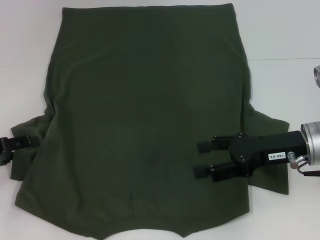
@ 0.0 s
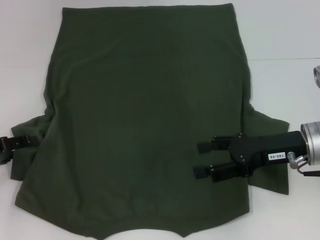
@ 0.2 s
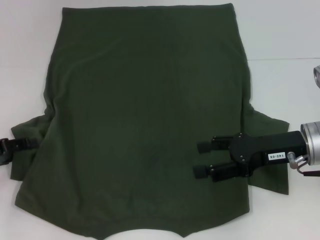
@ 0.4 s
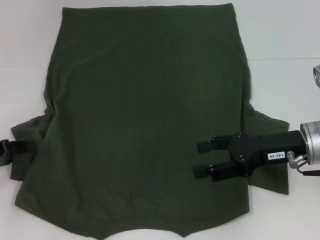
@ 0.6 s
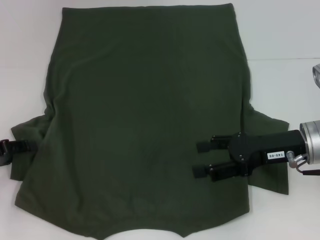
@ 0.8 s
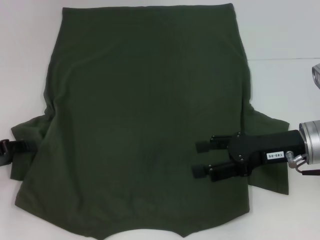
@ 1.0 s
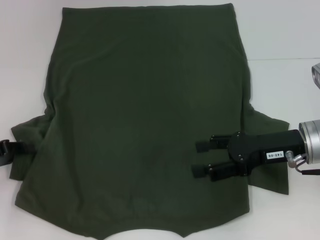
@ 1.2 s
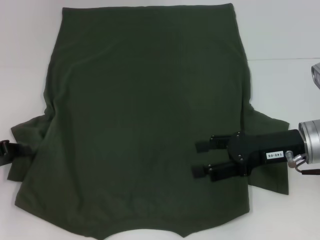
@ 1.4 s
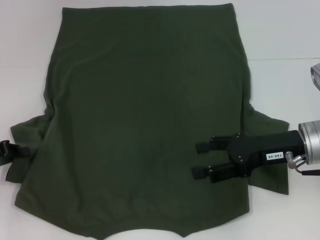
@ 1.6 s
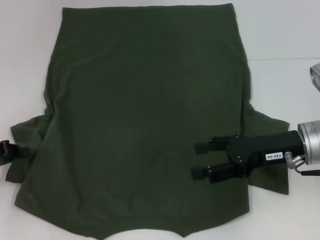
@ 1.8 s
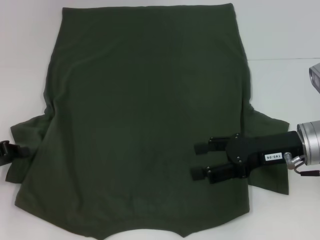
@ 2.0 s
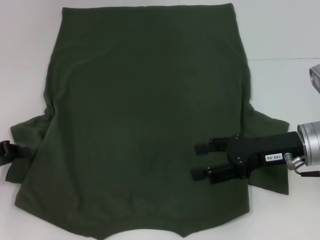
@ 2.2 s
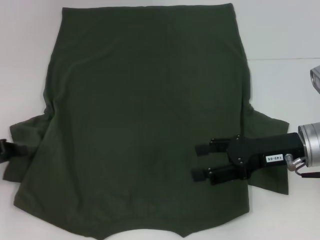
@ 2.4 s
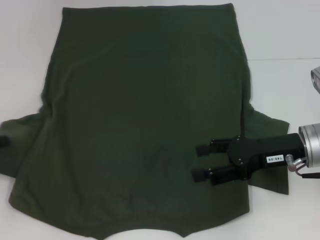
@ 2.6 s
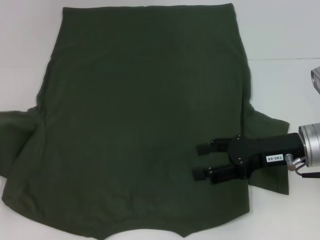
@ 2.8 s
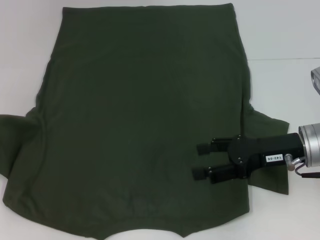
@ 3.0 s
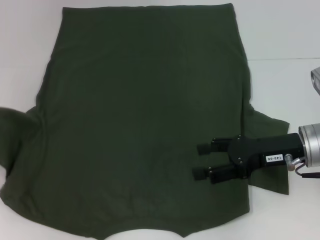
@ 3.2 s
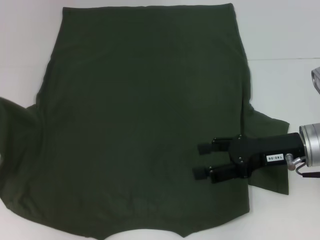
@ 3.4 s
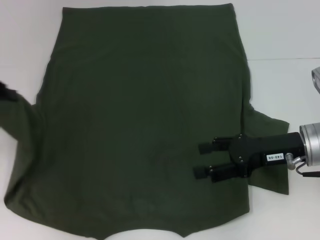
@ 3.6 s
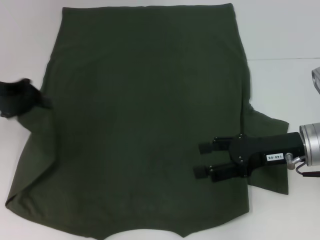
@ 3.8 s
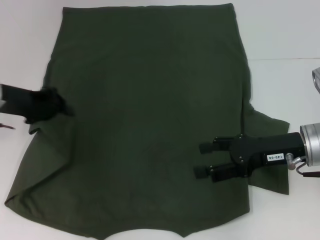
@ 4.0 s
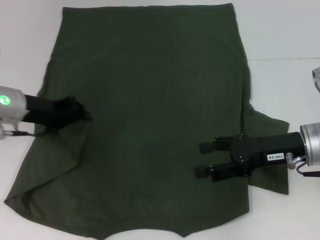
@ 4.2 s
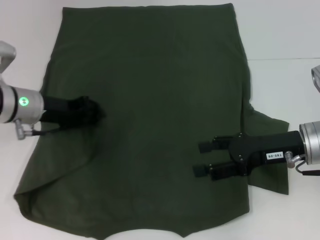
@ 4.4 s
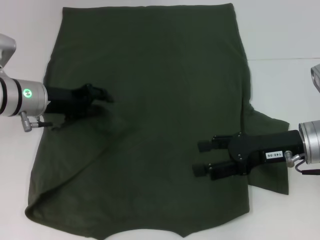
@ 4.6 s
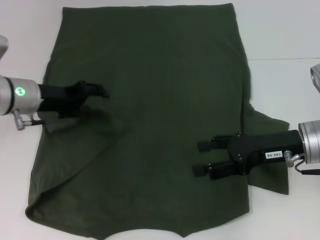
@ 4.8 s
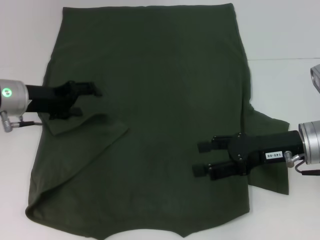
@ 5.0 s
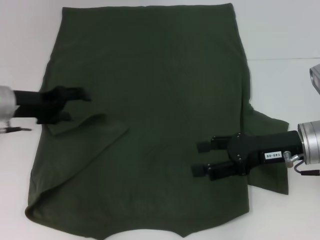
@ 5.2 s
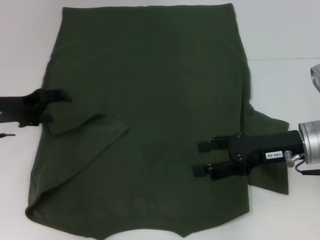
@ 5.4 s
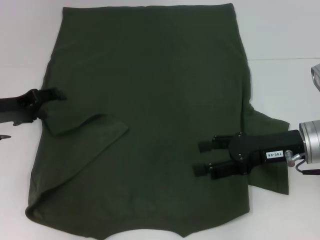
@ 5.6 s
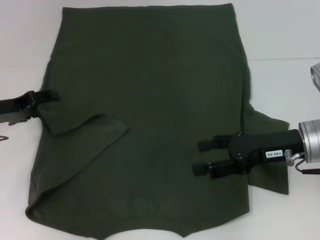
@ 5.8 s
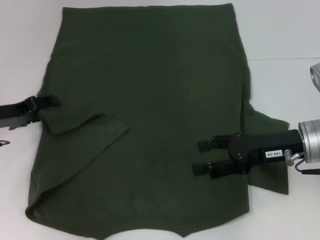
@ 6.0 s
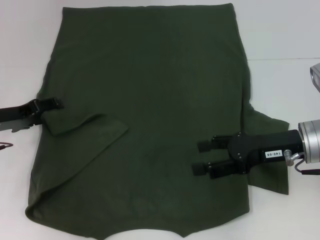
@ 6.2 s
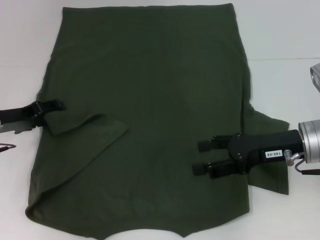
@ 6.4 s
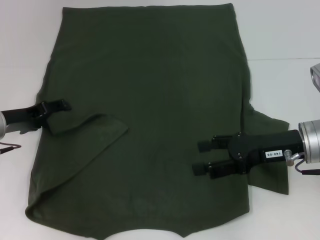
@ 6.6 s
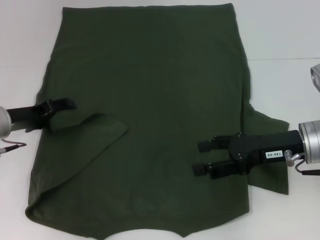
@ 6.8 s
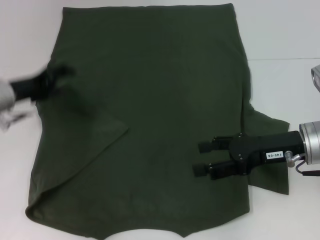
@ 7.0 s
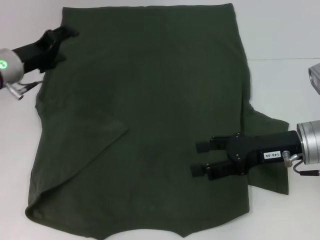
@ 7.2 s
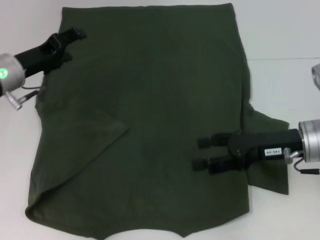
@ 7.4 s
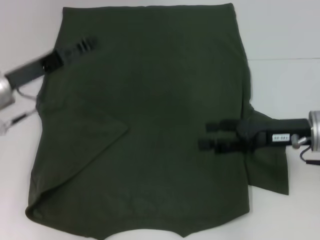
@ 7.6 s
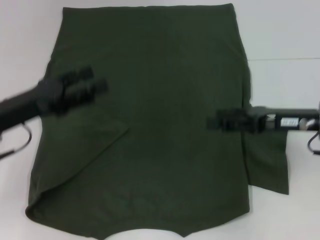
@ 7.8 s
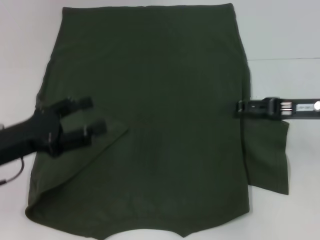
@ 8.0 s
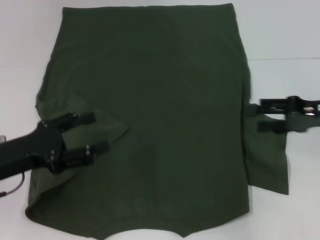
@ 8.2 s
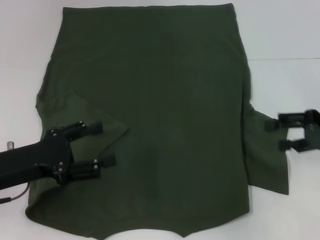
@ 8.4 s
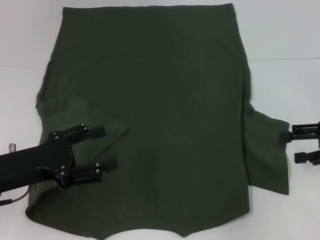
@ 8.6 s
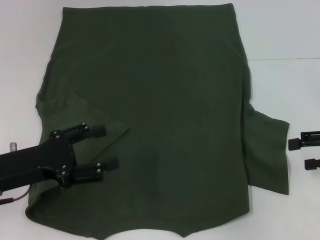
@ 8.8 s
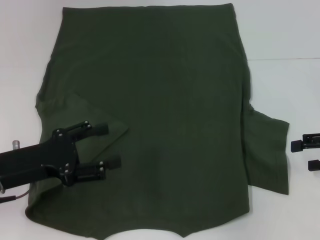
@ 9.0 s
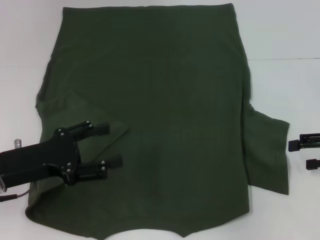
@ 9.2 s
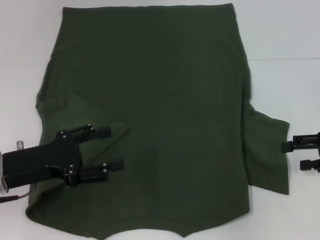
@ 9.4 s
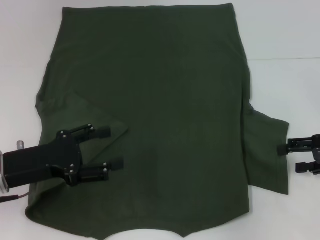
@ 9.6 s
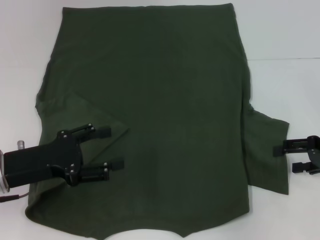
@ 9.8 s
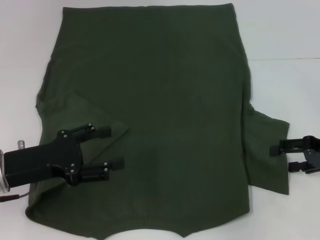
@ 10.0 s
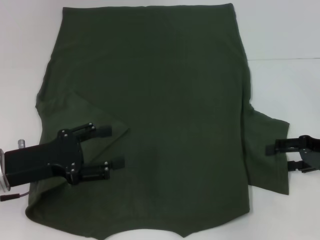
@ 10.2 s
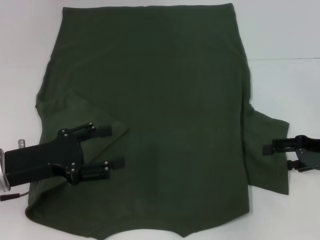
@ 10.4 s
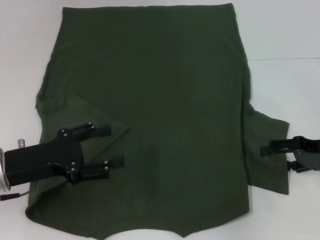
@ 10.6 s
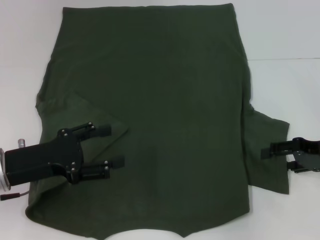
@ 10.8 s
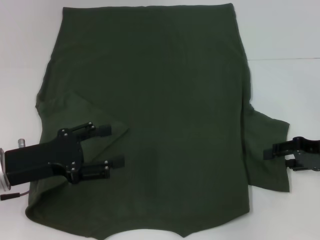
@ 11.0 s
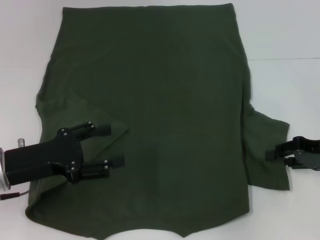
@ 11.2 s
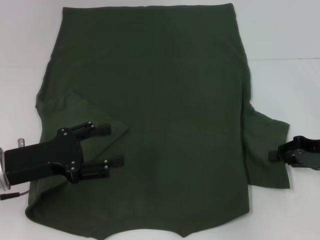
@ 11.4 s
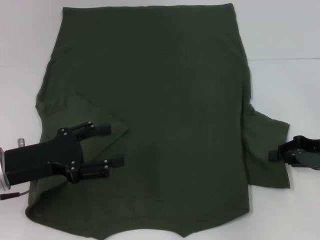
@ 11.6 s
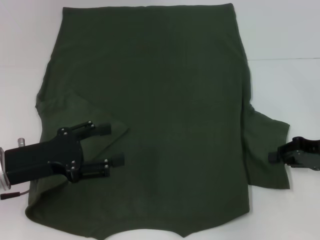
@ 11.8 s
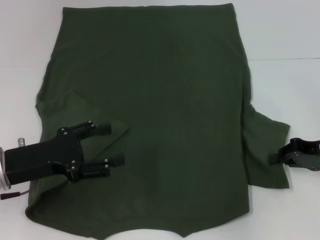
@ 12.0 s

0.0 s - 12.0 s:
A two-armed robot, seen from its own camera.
Step, 0.0 s - 5.0 s: Fold the bottom left sleeve with your left hand.
0.0 s - 1.6 s: The left gripper closes up.
1.6 s - 3.0 s: The left gripper shifts about 10 cm upward and to the left.
3.0 s - 4.4 s: The left gripper shifts some 20 cm to the right and forward.
4.4 s - 6.0 s: The left gripper goes approximately 10 cm to the left, and opens.
6.0 s - 7.6 s: The left gripper ends up some 5 cm from where it was.
7.6 s - 9.0 s: The right gripper goes approximately 15 cm to the right; the left gripper moves backward, some 10 cm.
9.0 s - 10.4 s: The right gripper shifts by about 5 cm.
10.4 s - 12.0 s: The right gripper closes up.

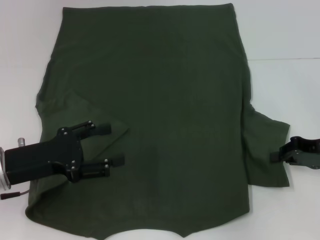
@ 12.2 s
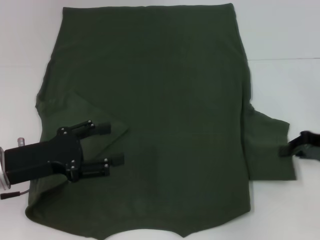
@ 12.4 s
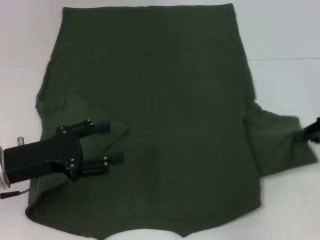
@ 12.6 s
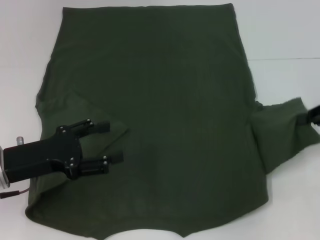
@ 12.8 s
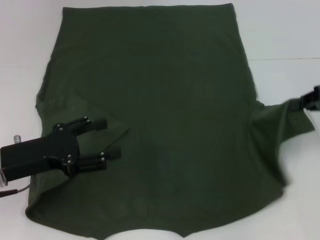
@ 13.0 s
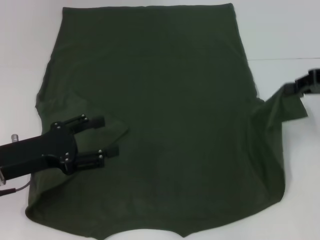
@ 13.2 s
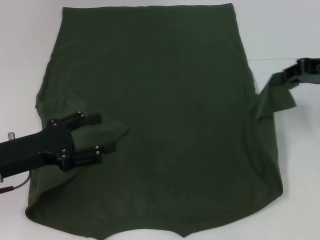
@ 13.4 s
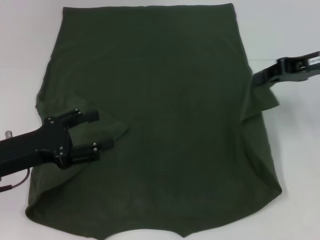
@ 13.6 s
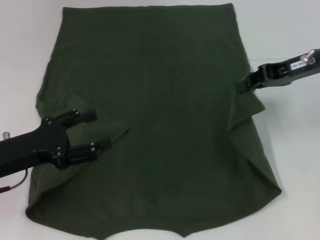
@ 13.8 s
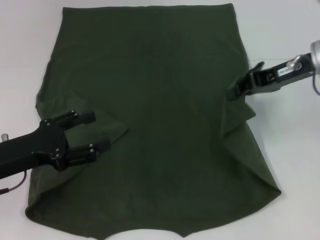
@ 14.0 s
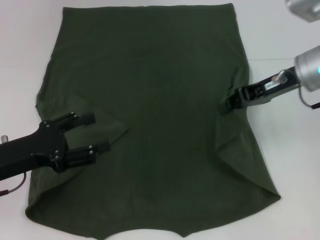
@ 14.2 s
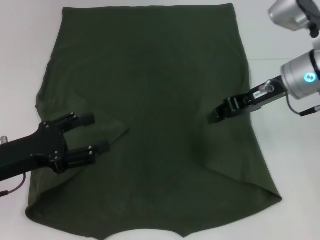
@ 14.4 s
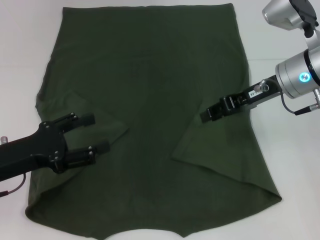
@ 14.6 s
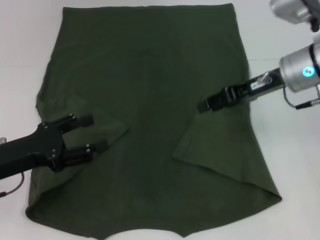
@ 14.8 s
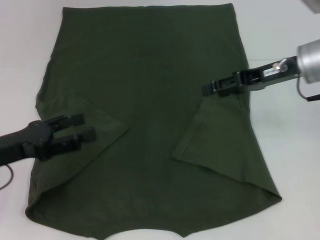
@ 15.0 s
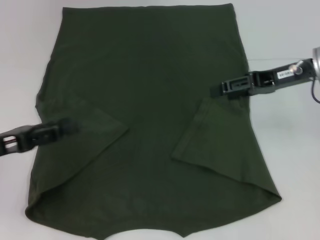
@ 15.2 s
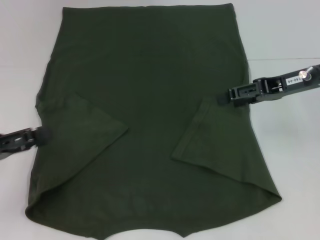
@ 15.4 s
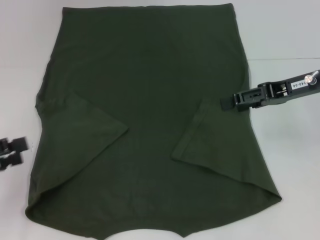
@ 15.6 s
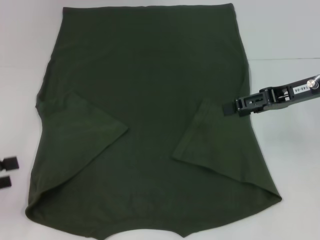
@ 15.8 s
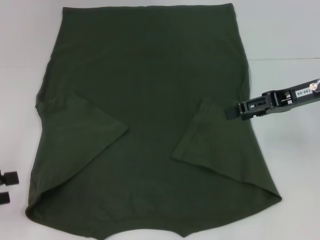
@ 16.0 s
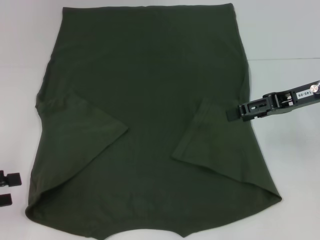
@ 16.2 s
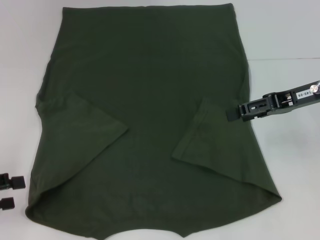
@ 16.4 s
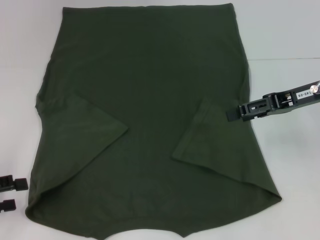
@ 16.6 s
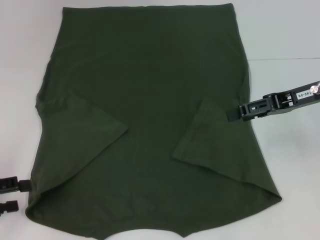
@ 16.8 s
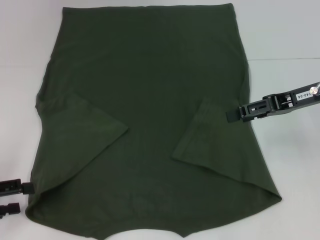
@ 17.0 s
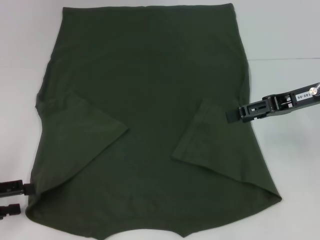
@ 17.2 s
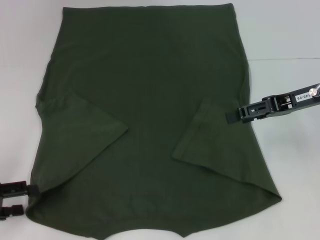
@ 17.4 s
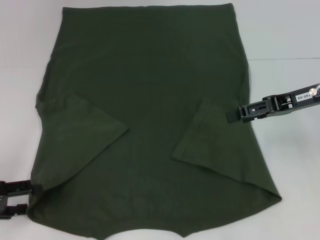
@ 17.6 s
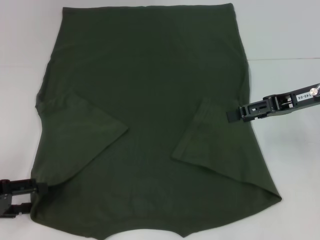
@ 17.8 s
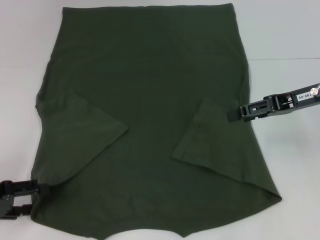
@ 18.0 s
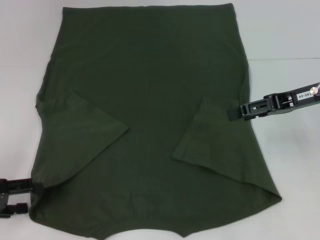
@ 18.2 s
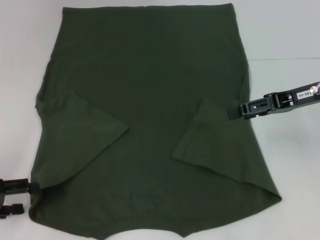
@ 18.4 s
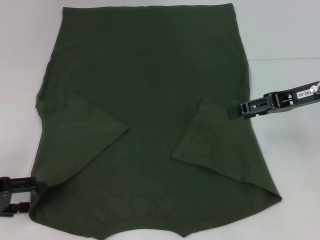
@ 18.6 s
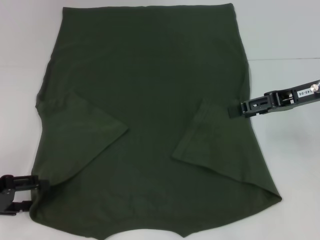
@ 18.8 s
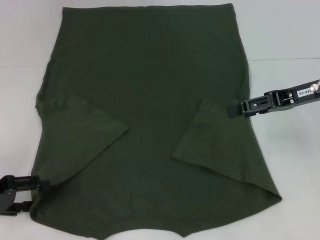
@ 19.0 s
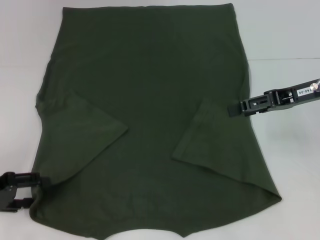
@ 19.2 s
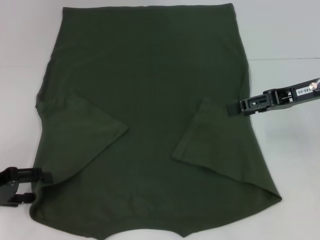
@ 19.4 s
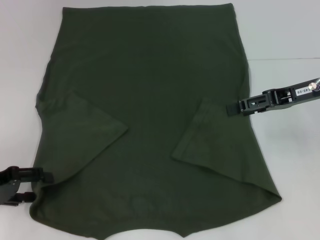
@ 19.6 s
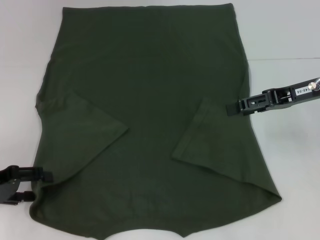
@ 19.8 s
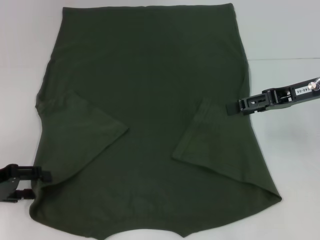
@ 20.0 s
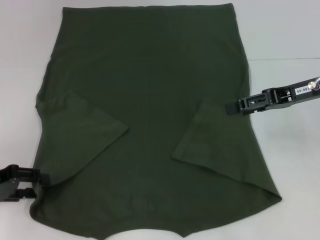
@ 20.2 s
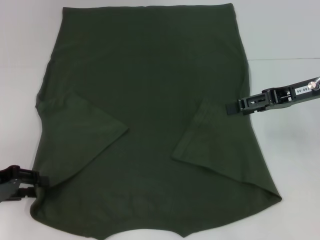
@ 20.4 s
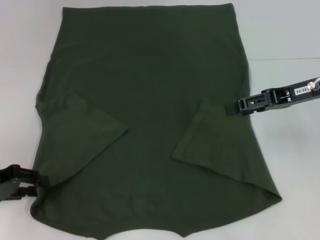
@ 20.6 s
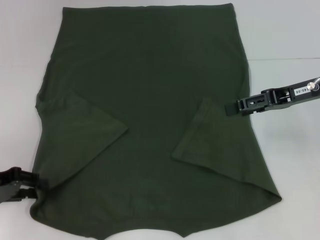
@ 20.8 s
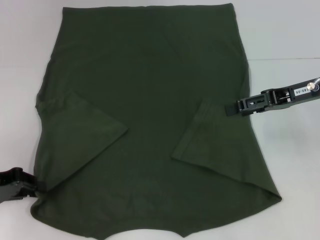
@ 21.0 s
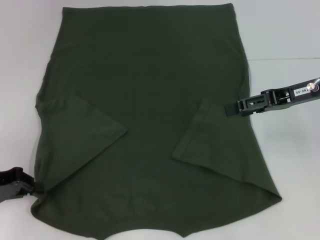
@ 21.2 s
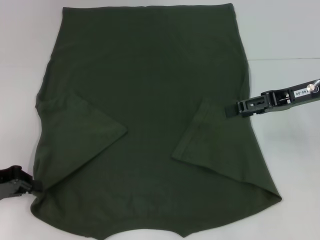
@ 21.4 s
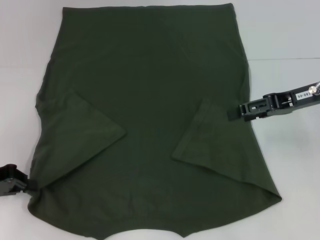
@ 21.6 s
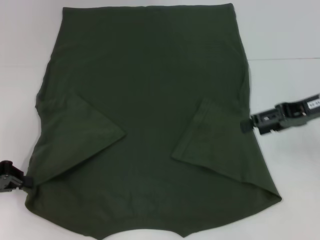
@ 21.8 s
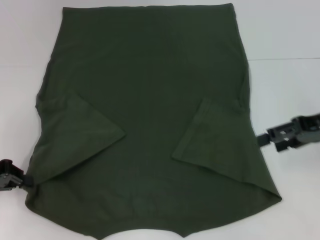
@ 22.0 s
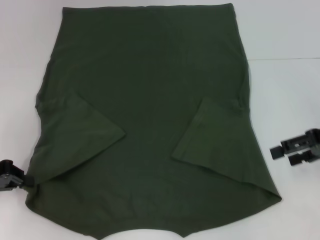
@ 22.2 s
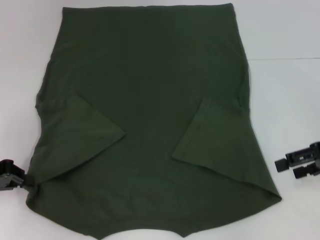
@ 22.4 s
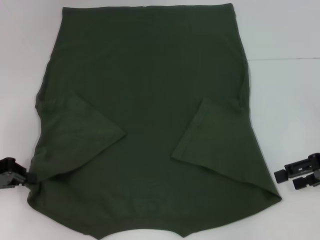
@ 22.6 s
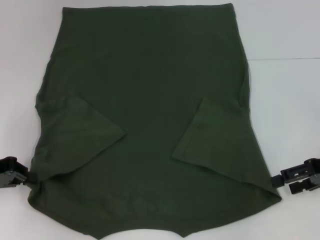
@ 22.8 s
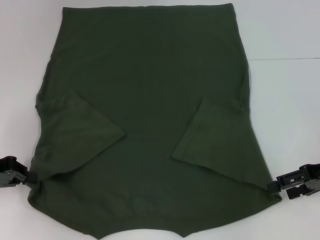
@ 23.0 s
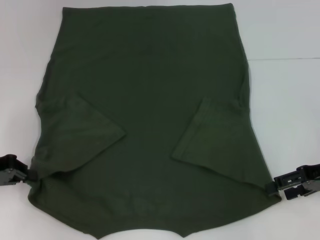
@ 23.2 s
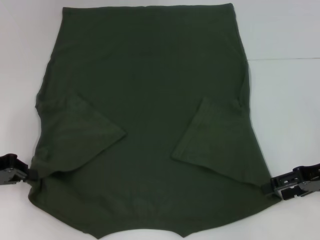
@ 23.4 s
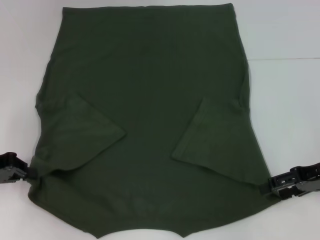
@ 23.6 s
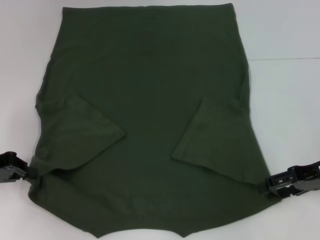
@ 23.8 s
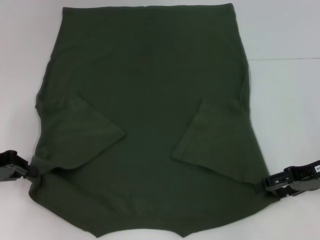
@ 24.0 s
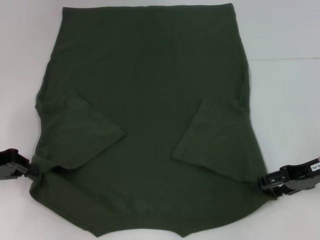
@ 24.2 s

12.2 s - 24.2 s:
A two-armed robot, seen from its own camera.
Step, 12.2 s - 14.6 s: Fold the bottom right sleeve with your right hand.
Step, 14.8 s - 21.0 s: Grab the bottom left corner with your left hand.
12.2 s - 13.8 s: The right gripper heads upward, forward and to the left, covering roughly 15 cm.
13.8 s - 15.2 s: The right gripper opens.
15.2 s - 16.6 s: The left gripper travels to the left by about 5 cm.
16.6 s - 18.2 s: There are only small adjustments of the grippers.
18.2 s - 19.8 s: The grippers stay close to where they were, moving slightly.
19.8 s - 21.2 s: The left gripper closes its fingers.
21.2 s - 22.6 s: The right gripper shifts about 10 cm to the right and backward.
22.6 s - 24.2 s: The grippers move only a little.
